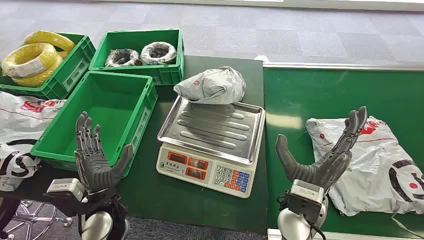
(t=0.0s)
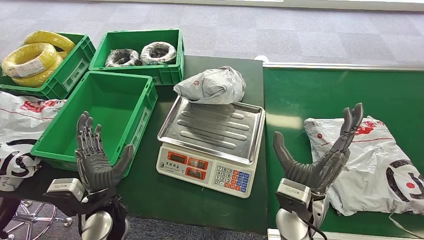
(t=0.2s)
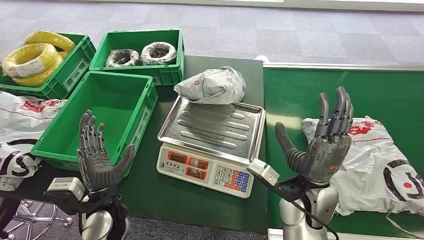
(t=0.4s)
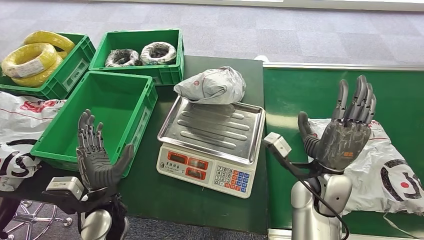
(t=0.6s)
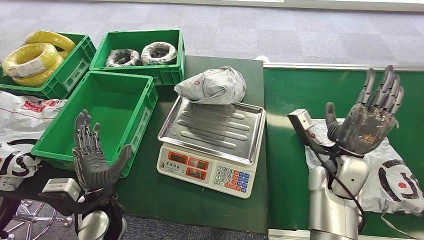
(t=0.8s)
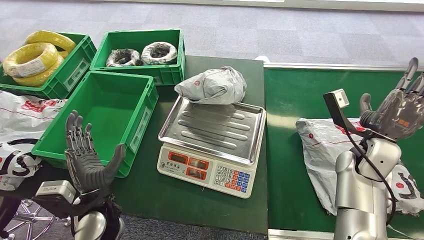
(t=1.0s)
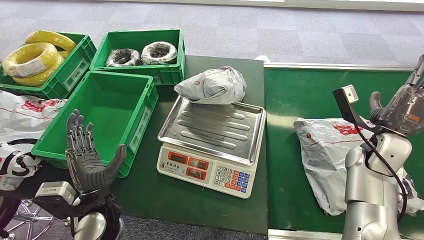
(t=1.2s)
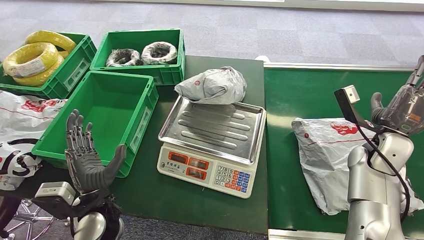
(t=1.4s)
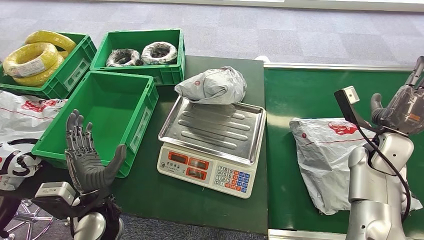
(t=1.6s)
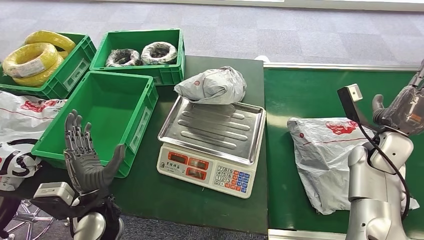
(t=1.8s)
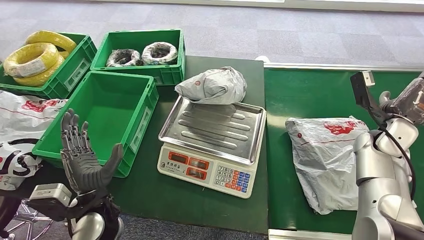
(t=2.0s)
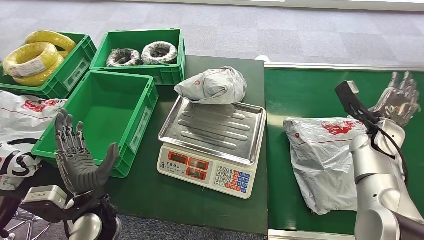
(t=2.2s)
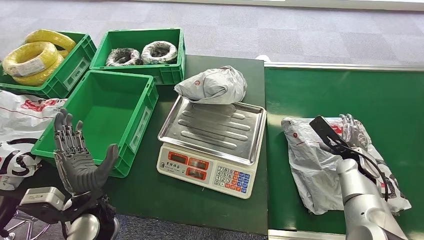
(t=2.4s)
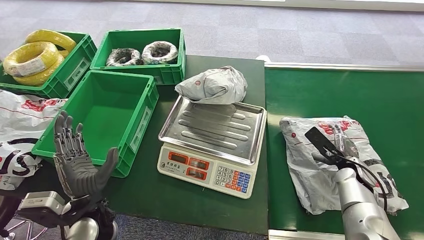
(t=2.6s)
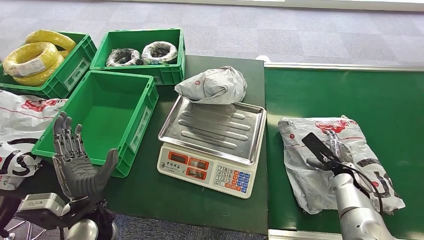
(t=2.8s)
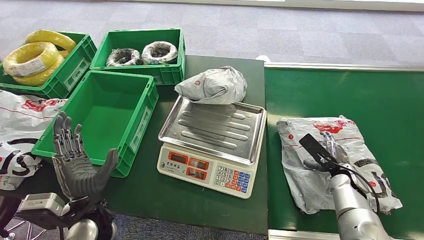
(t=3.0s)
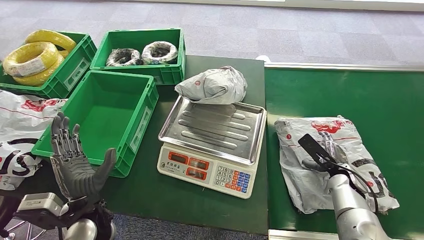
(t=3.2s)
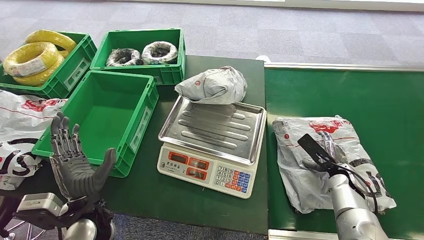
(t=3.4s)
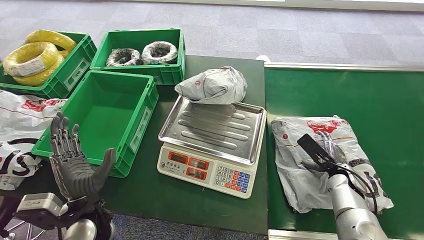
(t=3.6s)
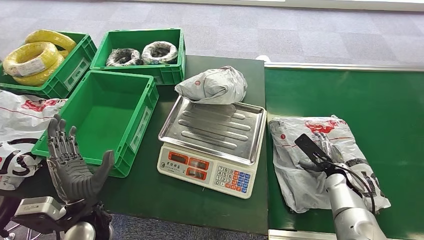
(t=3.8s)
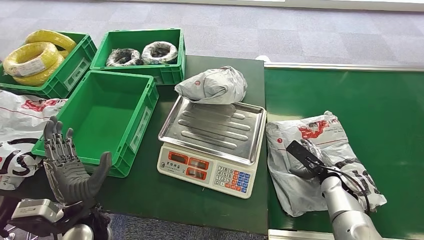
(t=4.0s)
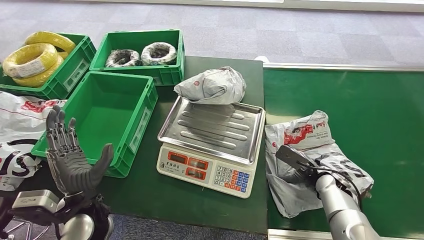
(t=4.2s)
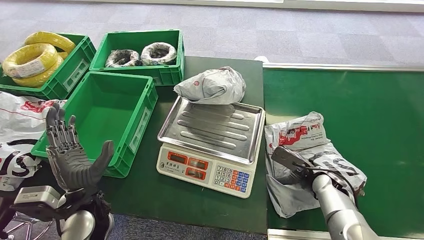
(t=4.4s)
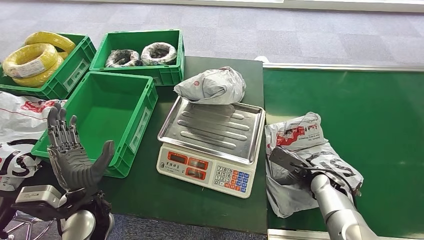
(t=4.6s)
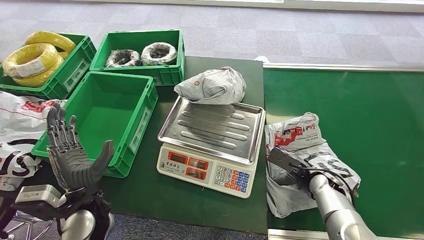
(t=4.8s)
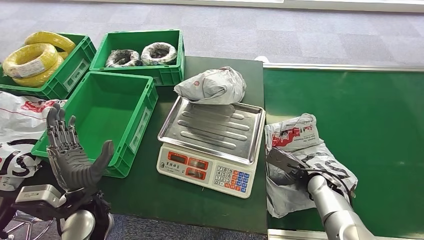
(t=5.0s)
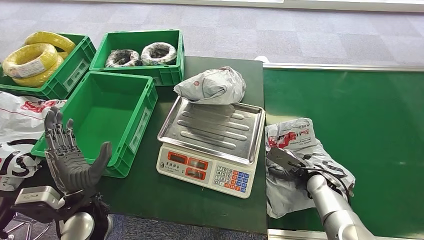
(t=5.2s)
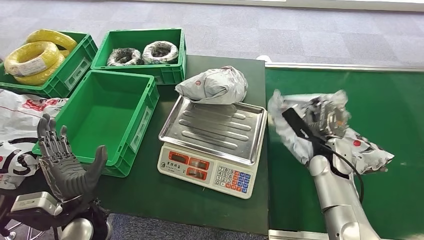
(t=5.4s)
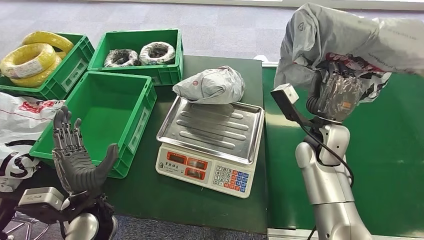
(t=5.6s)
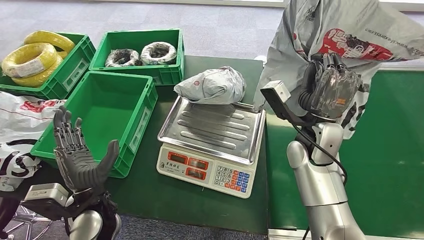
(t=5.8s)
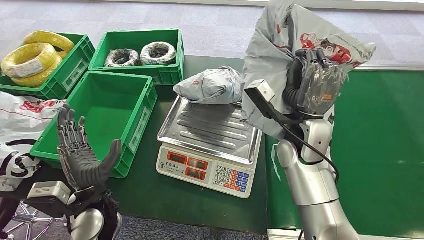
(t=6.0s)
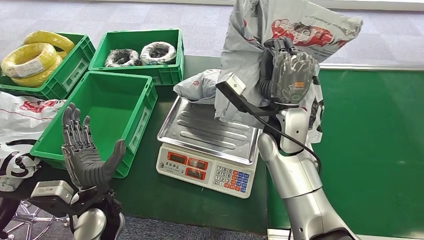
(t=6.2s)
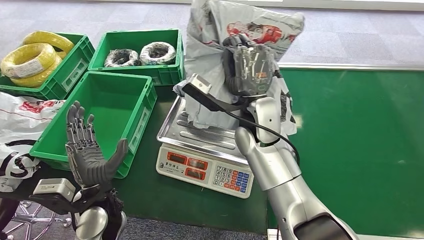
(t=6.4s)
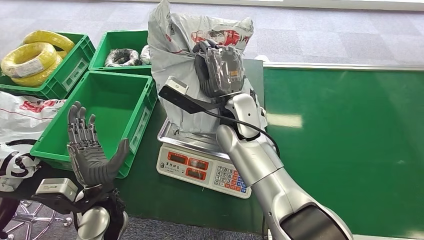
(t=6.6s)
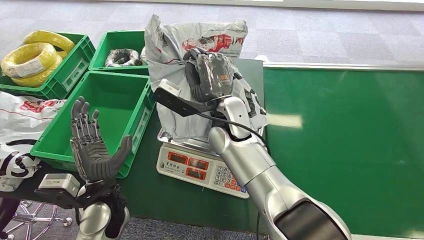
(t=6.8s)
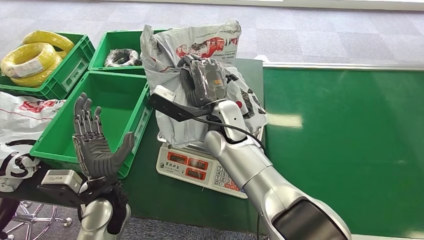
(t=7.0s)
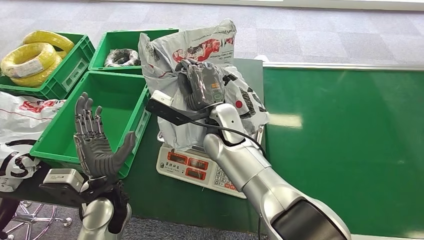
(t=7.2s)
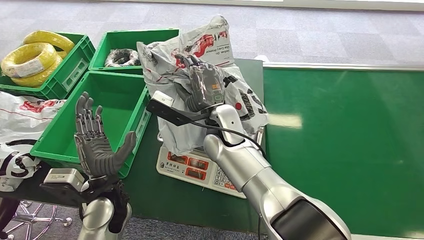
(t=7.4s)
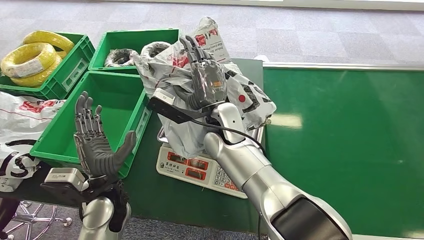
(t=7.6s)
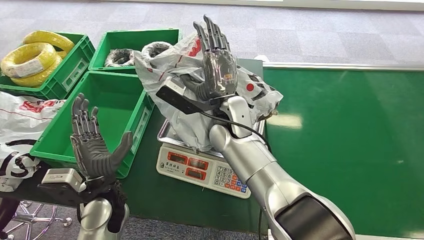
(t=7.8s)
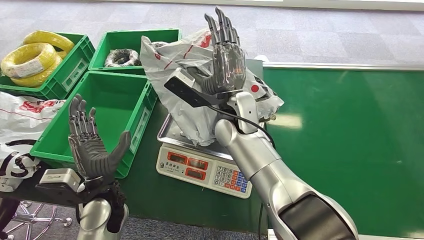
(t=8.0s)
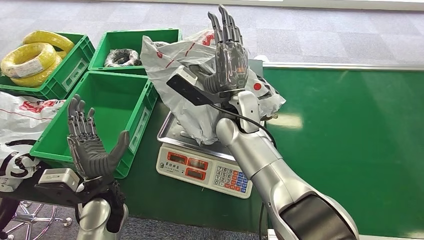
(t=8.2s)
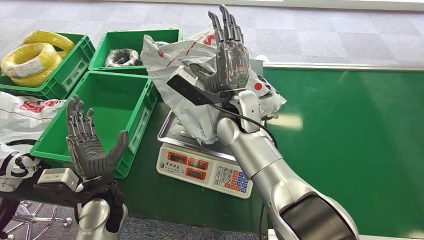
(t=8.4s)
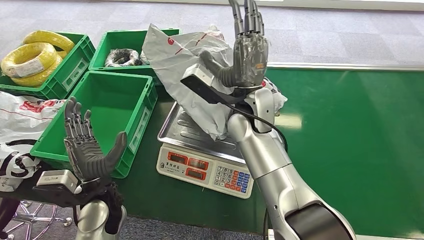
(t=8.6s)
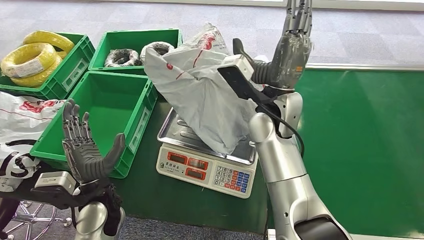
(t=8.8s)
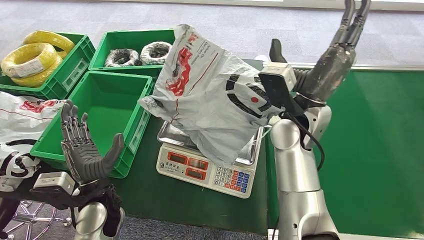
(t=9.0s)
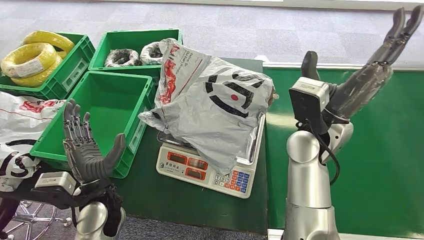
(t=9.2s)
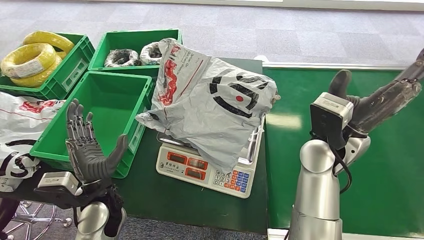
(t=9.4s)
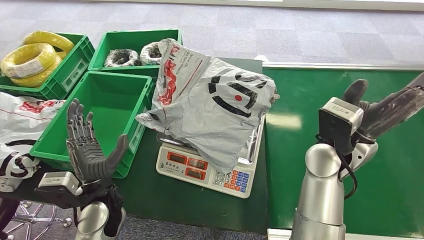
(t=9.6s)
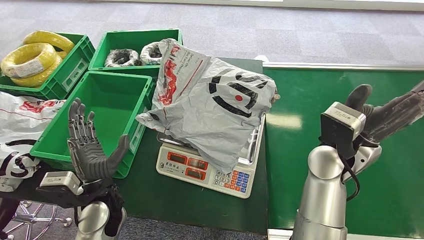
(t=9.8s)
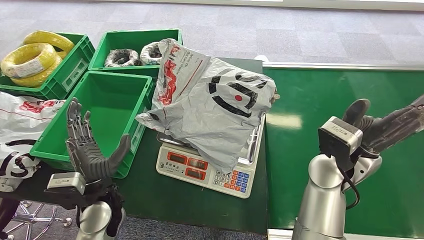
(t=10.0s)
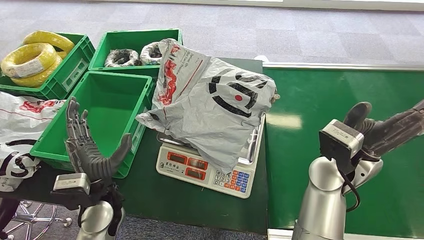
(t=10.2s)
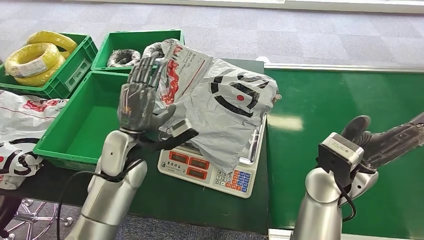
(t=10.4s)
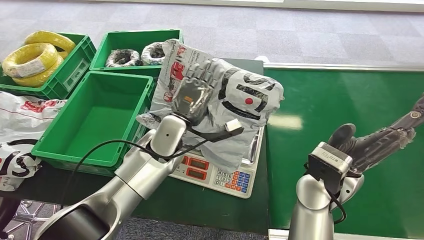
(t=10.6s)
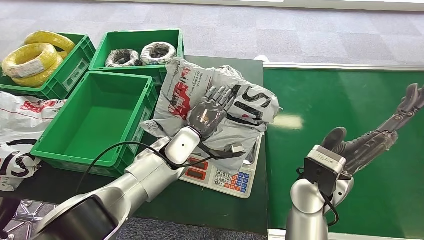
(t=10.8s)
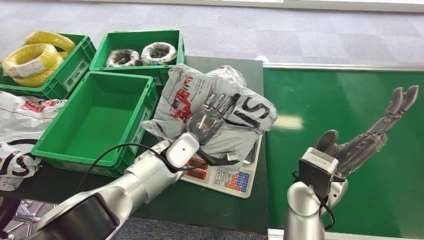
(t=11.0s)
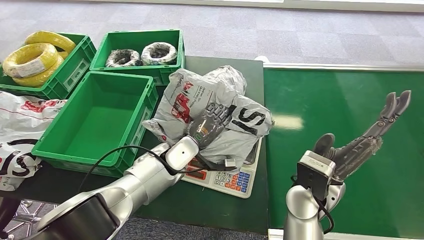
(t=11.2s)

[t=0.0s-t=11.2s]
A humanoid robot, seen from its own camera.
Step, t=0.0s to t=5.6s: Pick up the package from the conveyor belt.
Step, t=5.8s to t=9.4s: Place the package onto the inbound machine.
t=1.6s to t=3.2s: The right hand goes about 15 cm downward.

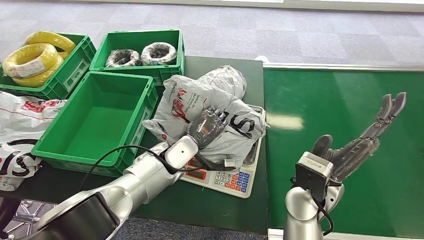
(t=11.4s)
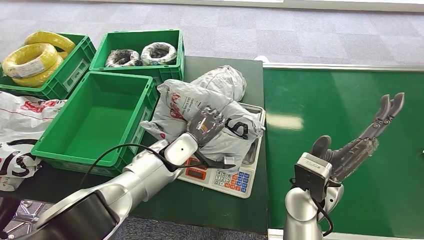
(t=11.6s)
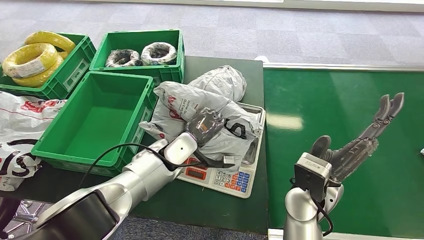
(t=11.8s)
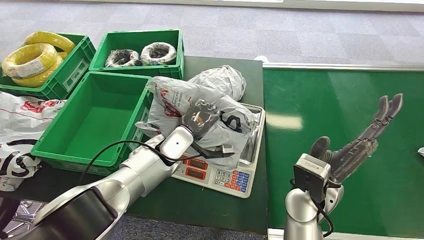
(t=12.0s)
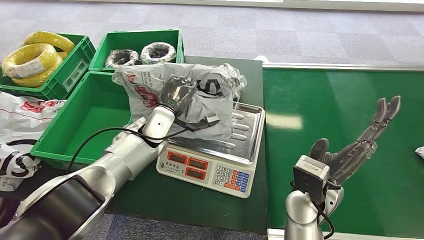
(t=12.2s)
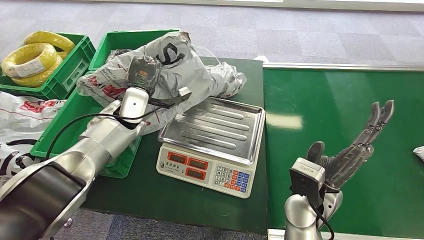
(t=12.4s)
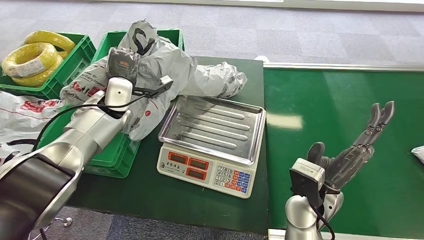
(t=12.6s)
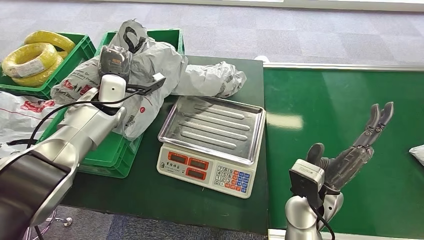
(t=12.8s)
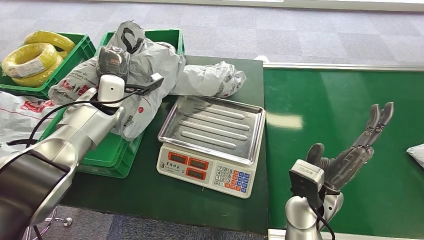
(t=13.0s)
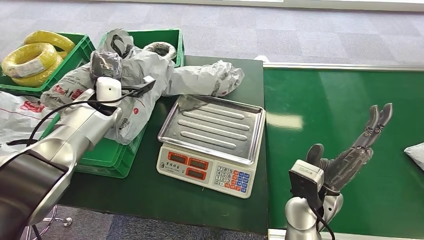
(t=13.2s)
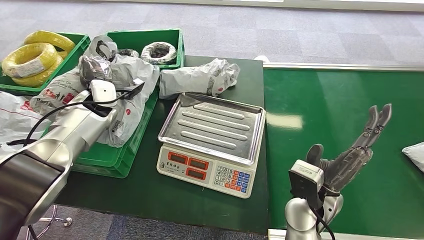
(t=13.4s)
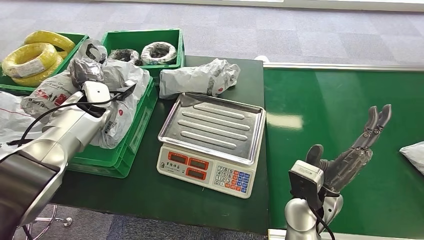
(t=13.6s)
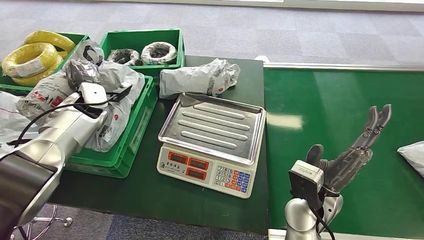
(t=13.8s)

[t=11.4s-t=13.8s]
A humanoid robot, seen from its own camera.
Step, t=12.8s to t=13.8s: Place the package into the parcel locker.
